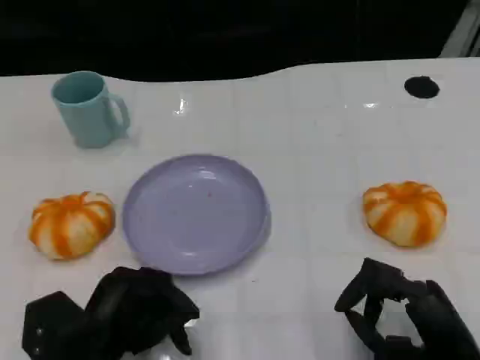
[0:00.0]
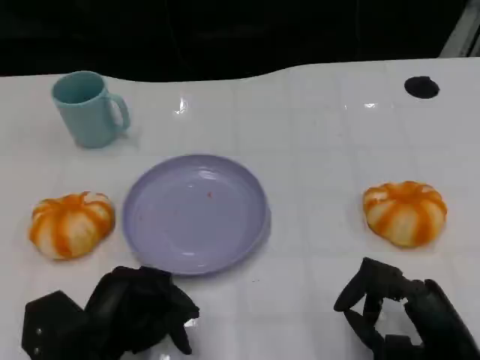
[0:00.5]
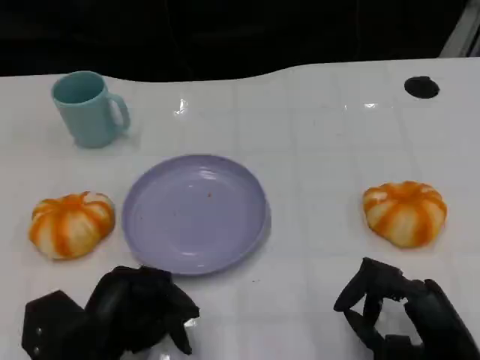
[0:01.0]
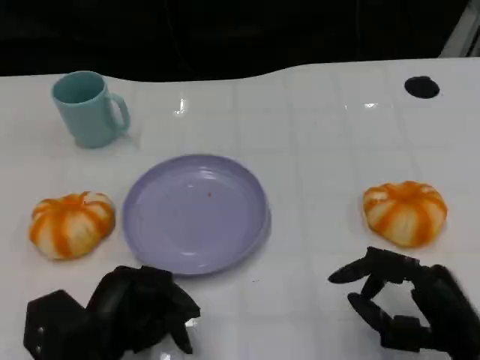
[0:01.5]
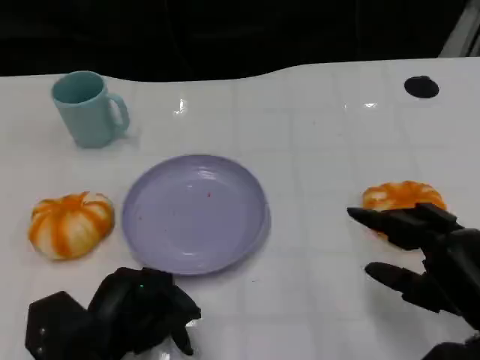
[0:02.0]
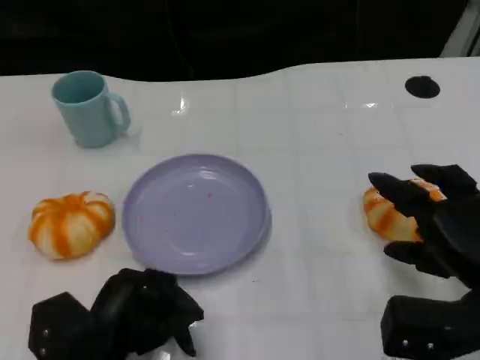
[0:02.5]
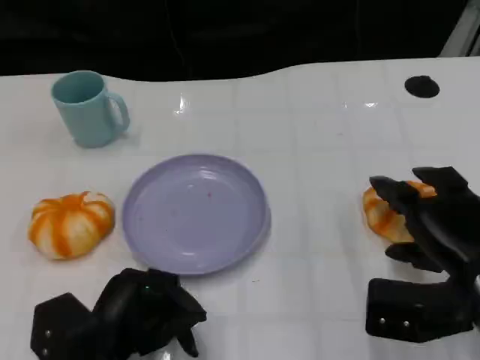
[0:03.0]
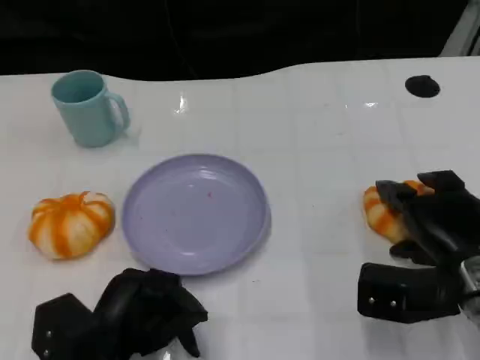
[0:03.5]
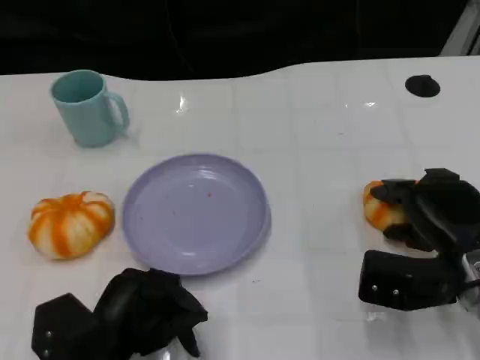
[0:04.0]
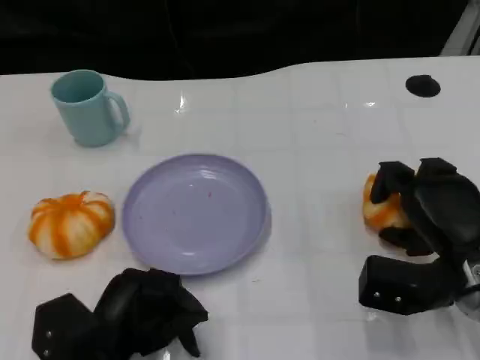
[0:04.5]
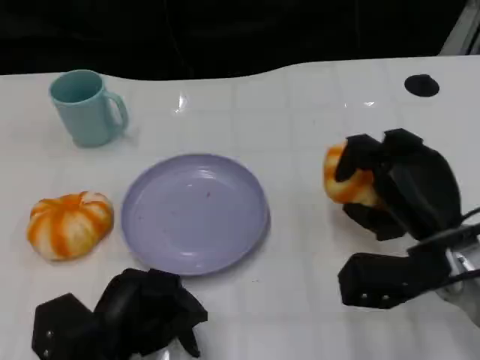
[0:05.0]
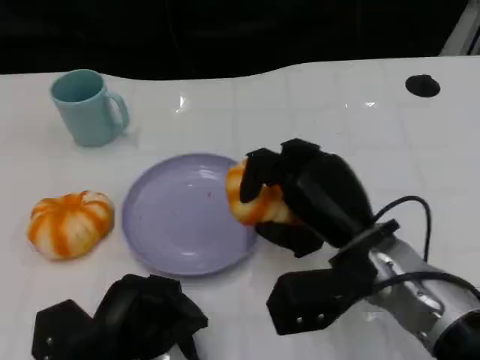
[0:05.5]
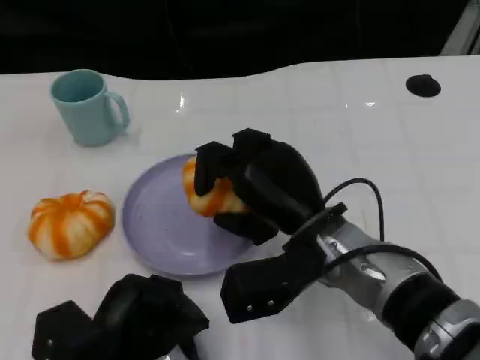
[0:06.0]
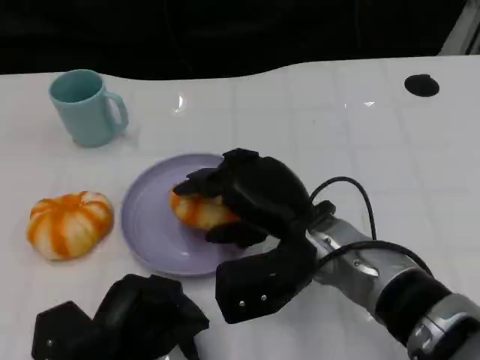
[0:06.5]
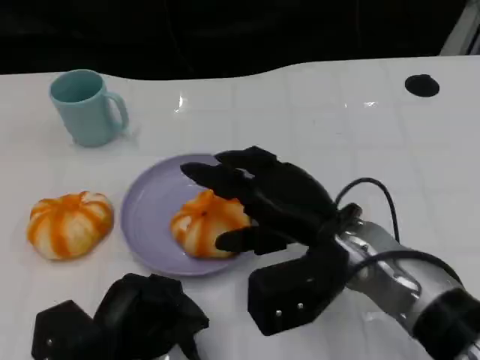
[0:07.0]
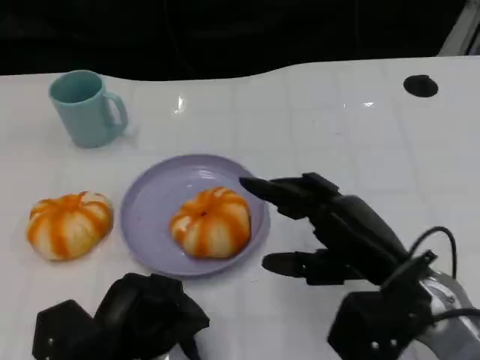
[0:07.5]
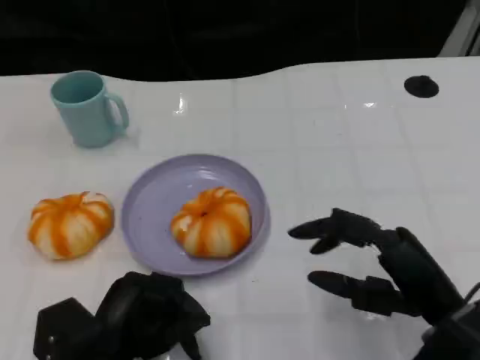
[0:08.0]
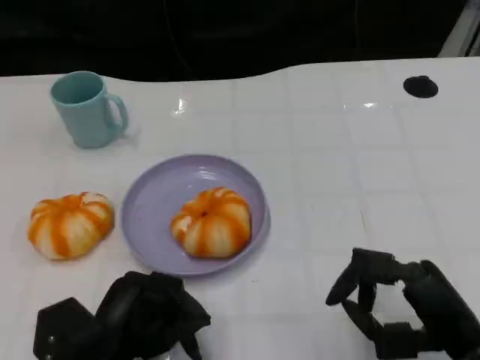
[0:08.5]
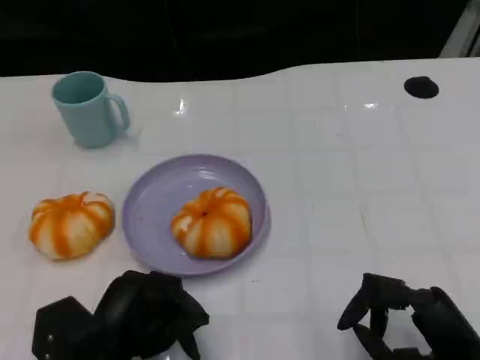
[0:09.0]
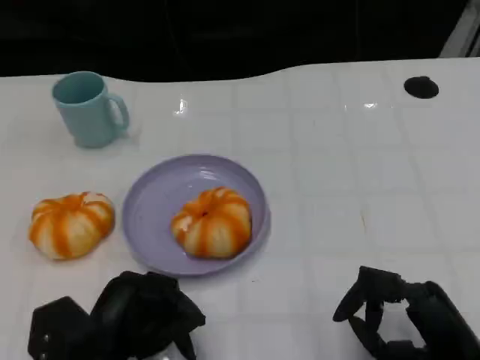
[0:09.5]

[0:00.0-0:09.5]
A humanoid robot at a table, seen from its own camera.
Task of the whole recording: Grasp the bread from the table and place it into the plate.
0:00.0 to 0:02.0: The right hand moves roughly 5 cm.
0:02.0 to 0:04.0: The right hand travels forward by about 10 cm.
0:04.0 to 0:05.5: The right hand travels to the left by approximately 10 cm.
0:05.5 to 0:07.5: The right hand ends up approximately 5 cm from where it was.
0:07.5 to 0:09.5: The right hand travels backward, downward and to the right by about 10 cm.

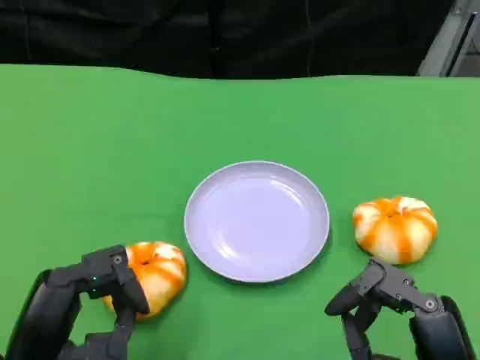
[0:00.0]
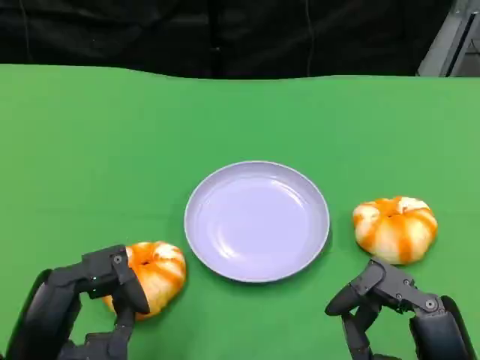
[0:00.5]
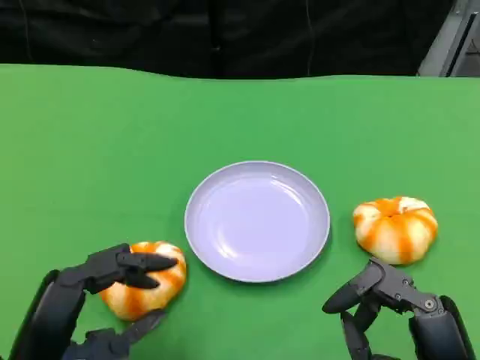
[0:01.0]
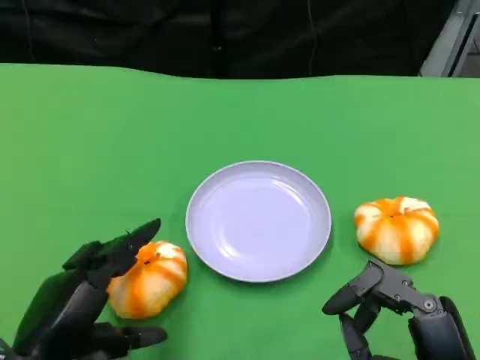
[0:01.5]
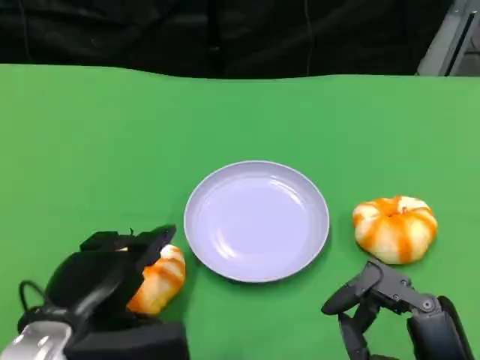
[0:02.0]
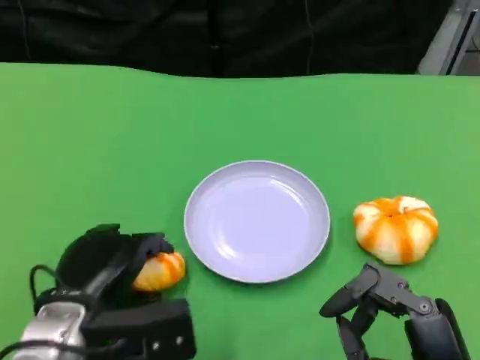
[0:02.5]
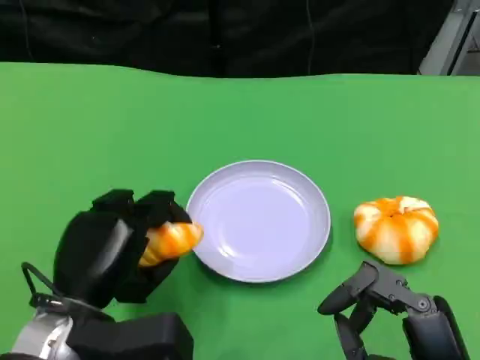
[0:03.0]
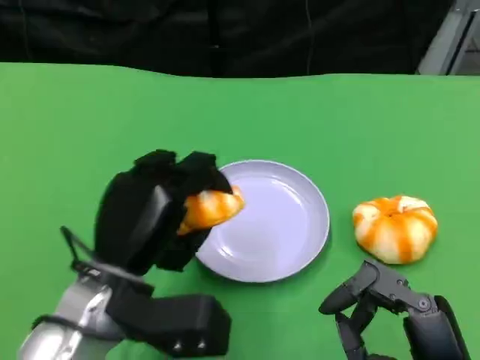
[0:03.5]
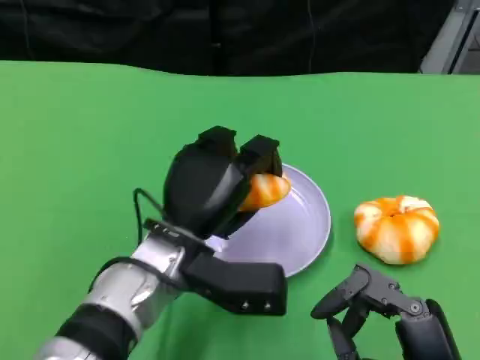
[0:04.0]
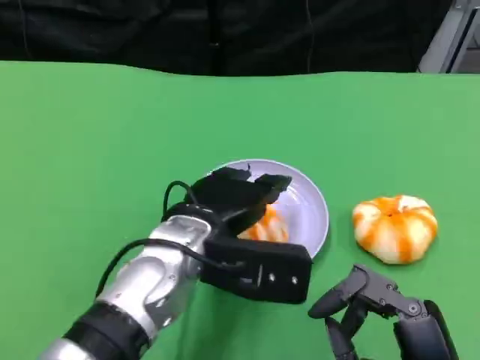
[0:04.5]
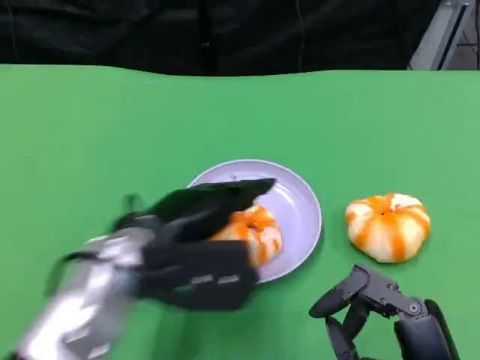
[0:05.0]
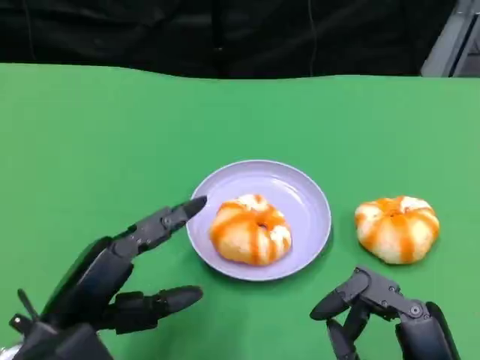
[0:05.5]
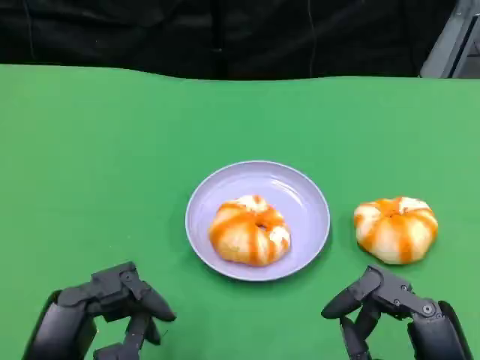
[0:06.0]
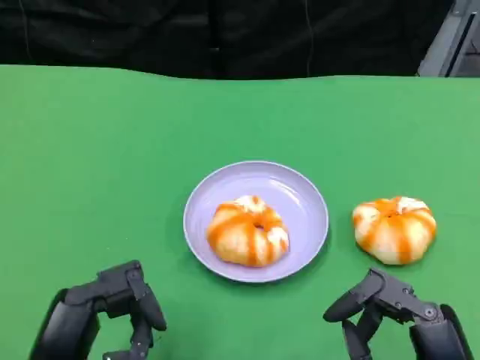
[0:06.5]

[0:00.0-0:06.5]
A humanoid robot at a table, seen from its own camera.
Task of the whole recording: Grasp the bread from the table and place it into the plate.
0:00.0 to 0:02.0: The left hand moves about 5 cm.
0:02.0 to 0:04.5: The left hand is displaced to the right and forward by approximately 15 cm.
0:04.5 to 0:06.5: The left hand travels backward and to the left by some 20 cm.

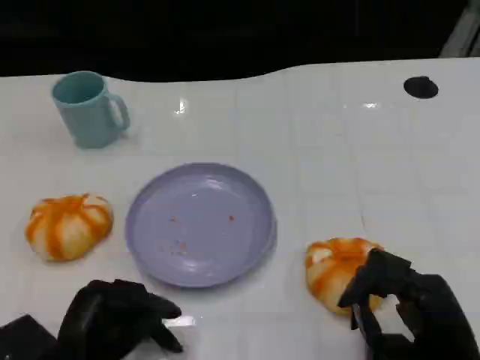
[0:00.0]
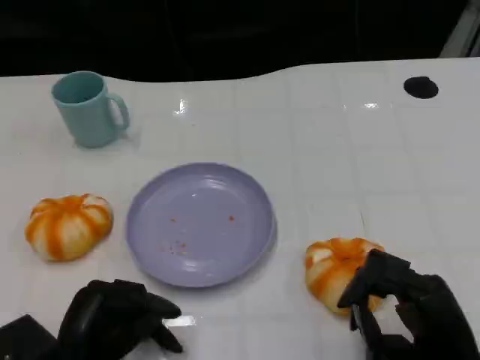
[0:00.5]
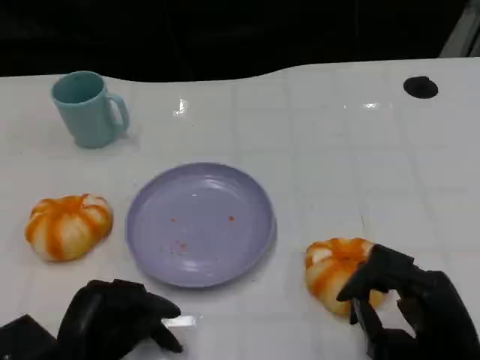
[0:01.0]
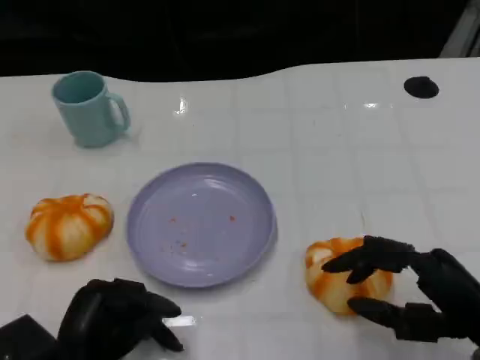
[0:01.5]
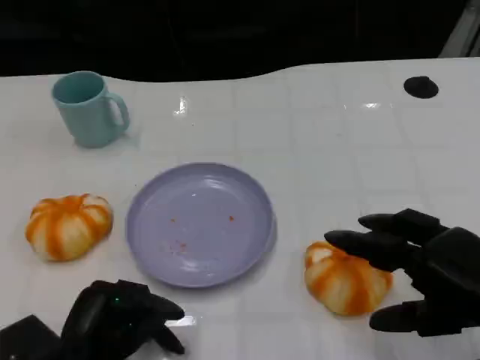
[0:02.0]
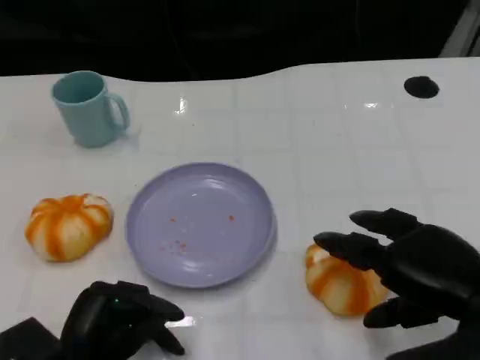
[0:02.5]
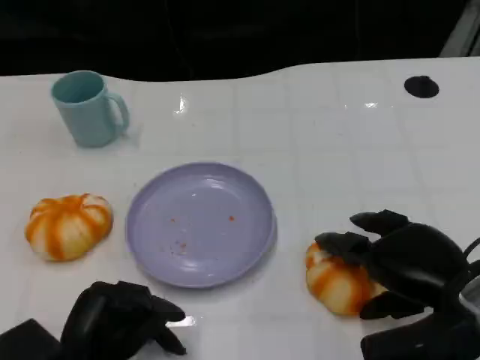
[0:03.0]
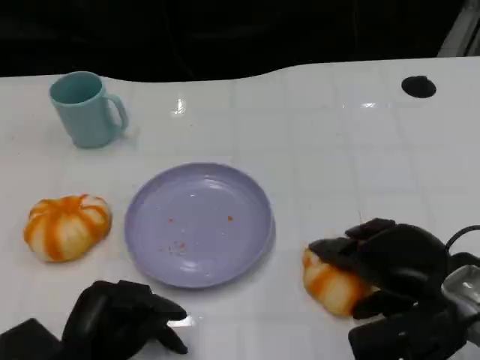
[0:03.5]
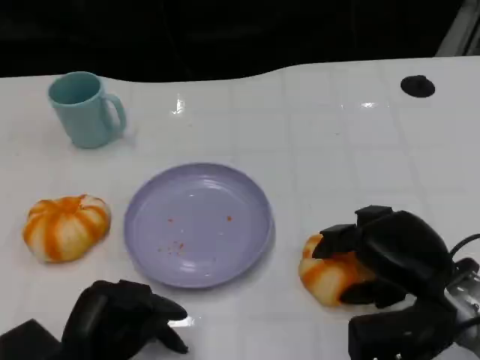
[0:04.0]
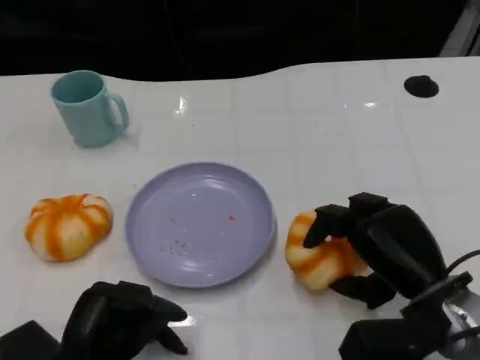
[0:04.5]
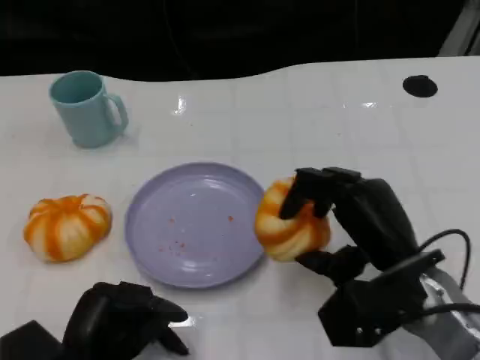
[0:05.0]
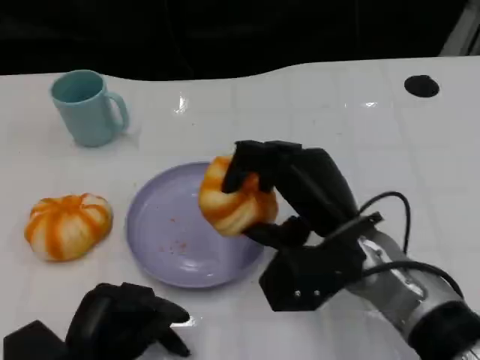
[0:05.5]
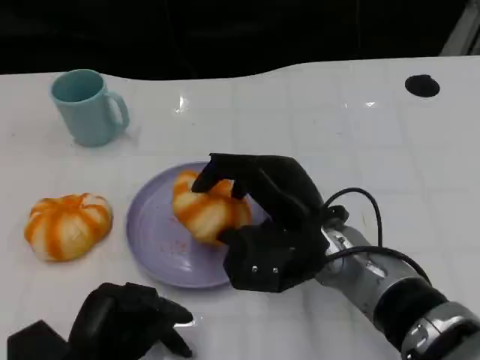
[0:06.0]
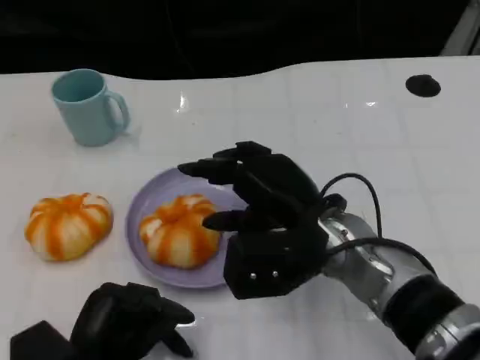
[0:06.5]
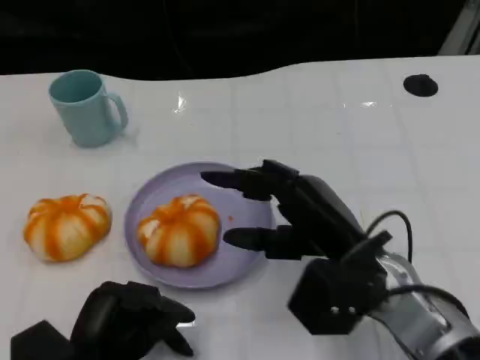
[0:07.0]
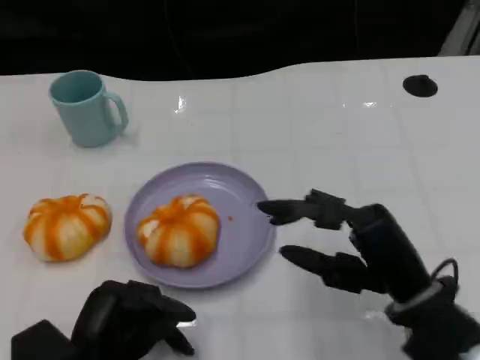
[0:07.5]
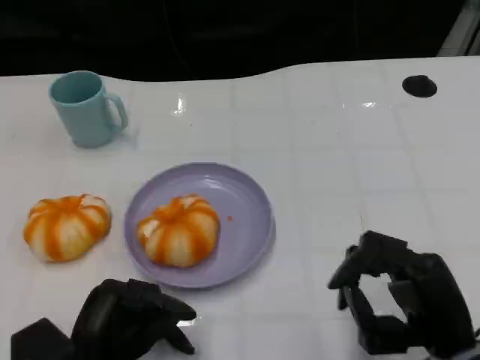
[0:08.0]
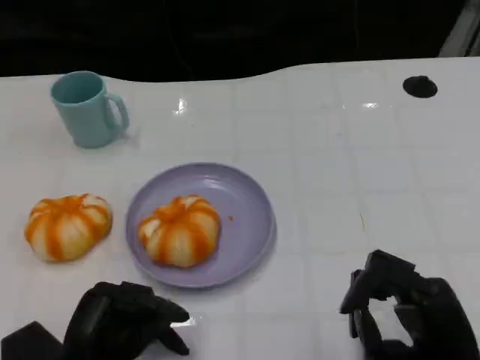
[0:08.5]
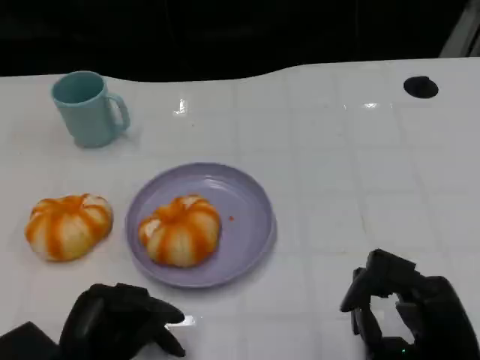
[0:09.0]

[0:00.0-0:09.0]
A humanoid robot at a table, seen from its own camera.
Task of the whole recording: Grasp the bread from the table and place it into the plate.
0:00.0 to 0:02.0: The right hand is displaced upward by roughly 10 cm.
0:02.0 to 0:04.5: The right hand moves downward, to the left and forward, some 10 cm.
0:04.5 to 0:07.0: The right hand shifts about 5 cm to the left.
0:07.0 to 0:09.0: The right hand heads backward, to the right and downward, covering approximately 15 cm.
